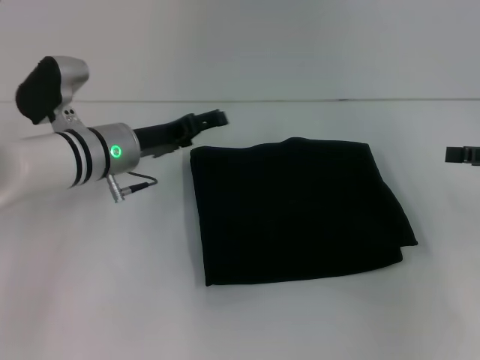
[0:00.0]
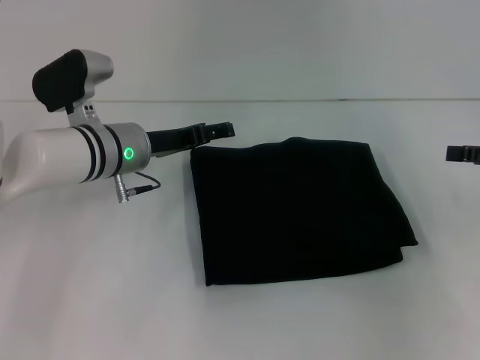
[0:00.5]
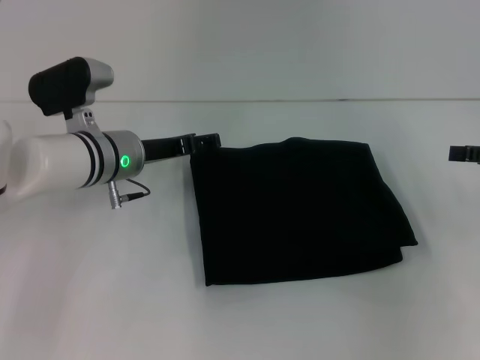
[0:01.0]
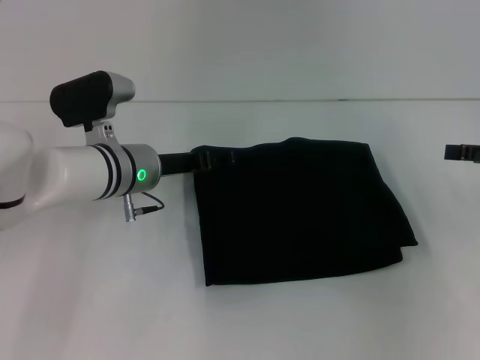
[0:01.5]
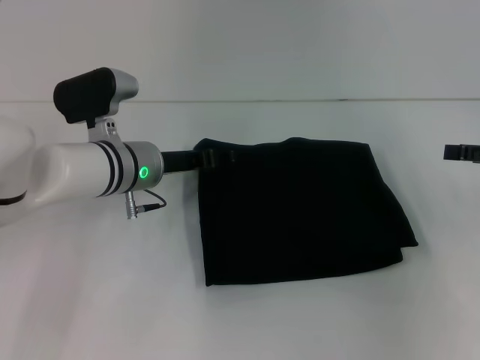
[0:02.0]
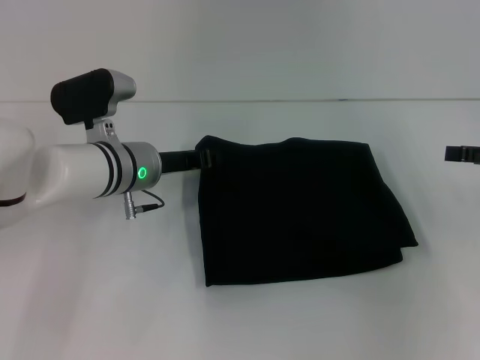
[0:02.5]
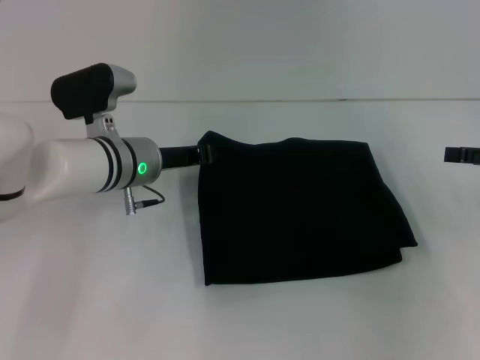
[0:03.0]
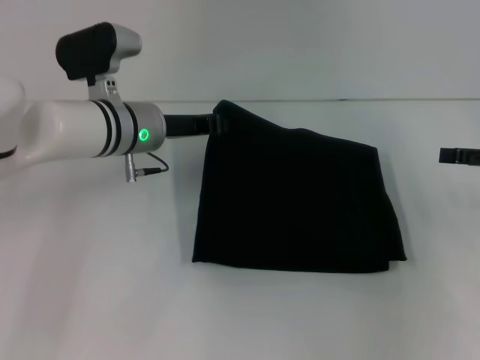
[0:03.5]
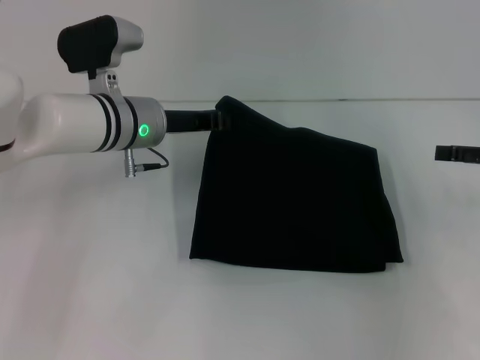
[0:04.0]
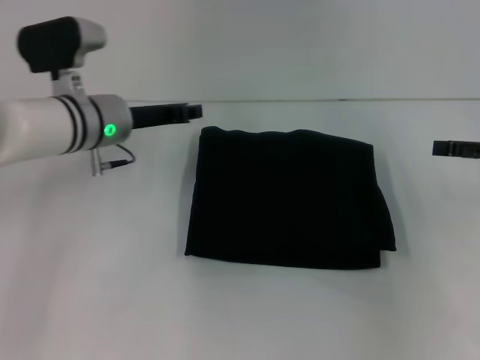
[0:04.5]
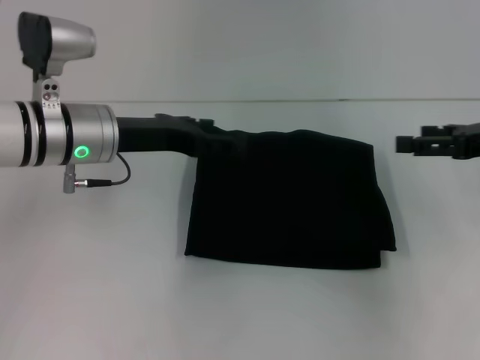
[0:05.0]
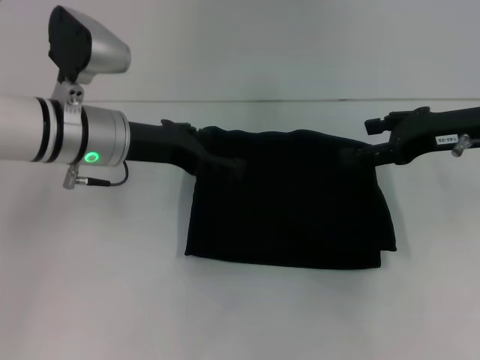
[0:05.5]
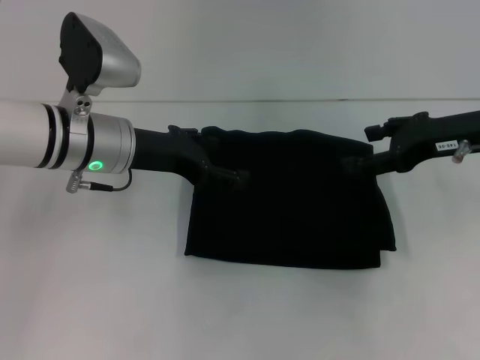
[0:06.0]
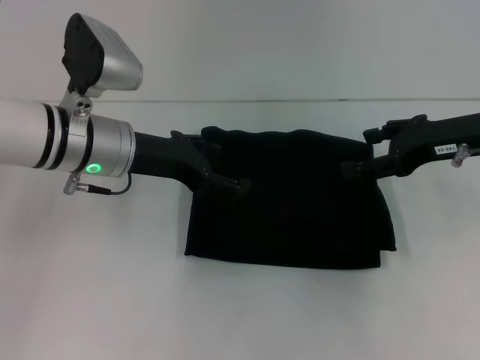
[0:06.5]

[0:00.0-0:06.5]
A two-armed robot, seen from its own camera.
0:00.0 to 0:02.0: The grippers make only small movements.
0:02.0 to 0:04.5: The left gripper moves some 5 cm, and closes.
0:04.5 to 0:06.5: The left gripper changes place by about 5 cm, and opens its fingers, while the right gripper shifts about 10 cm to the left.
